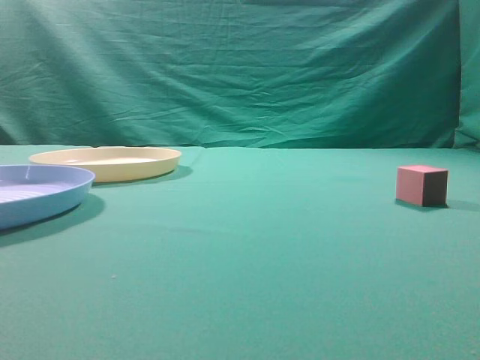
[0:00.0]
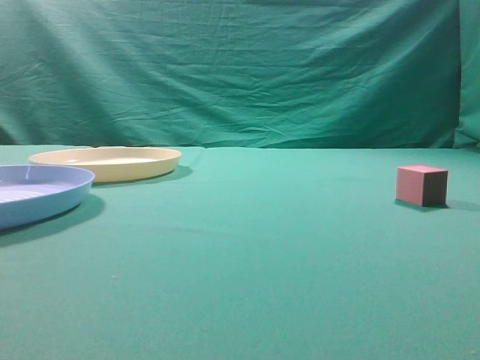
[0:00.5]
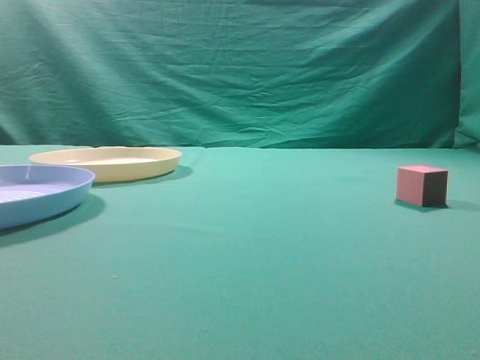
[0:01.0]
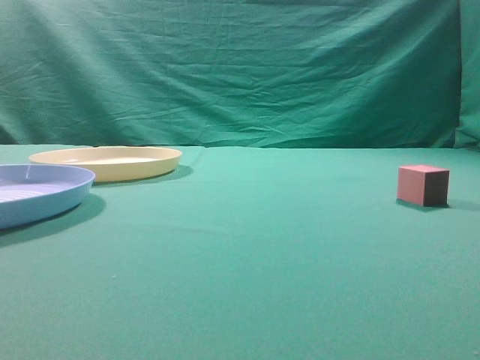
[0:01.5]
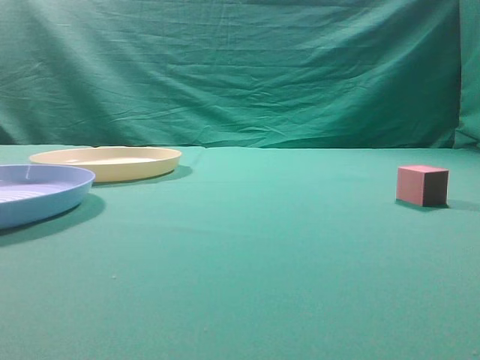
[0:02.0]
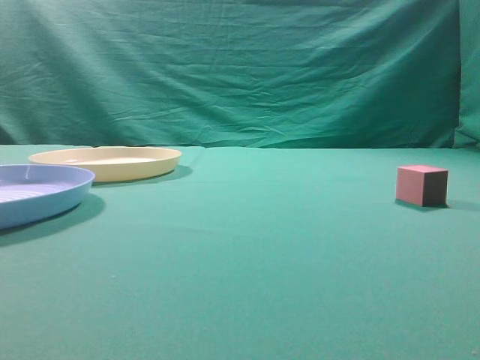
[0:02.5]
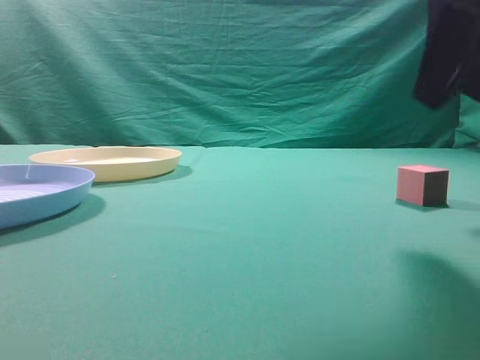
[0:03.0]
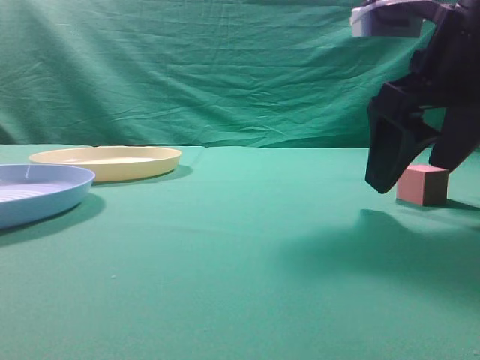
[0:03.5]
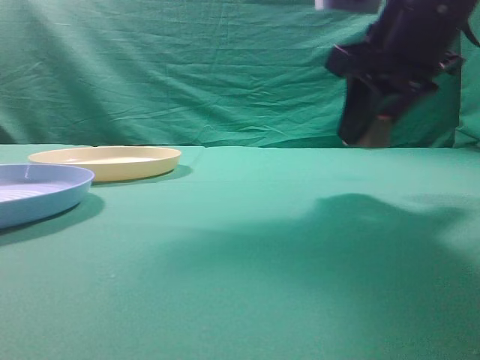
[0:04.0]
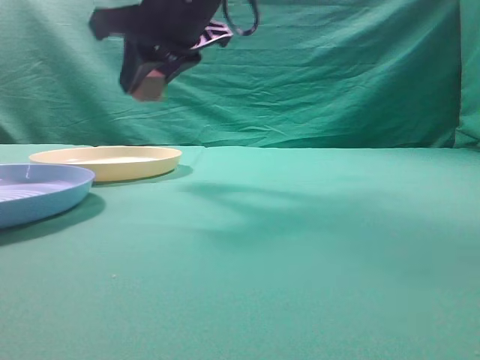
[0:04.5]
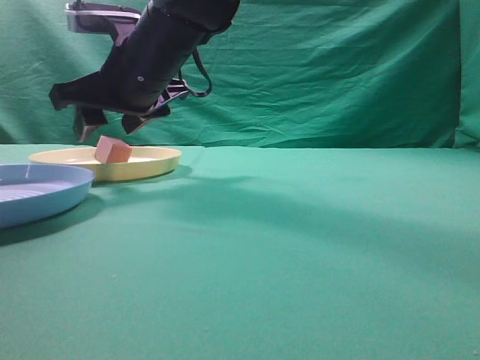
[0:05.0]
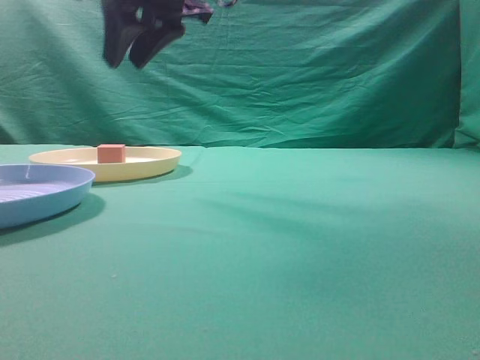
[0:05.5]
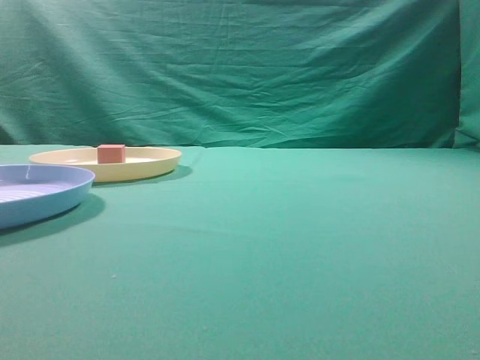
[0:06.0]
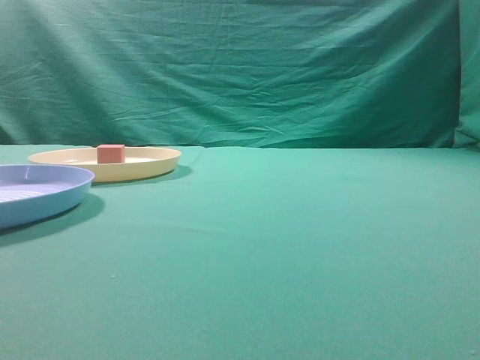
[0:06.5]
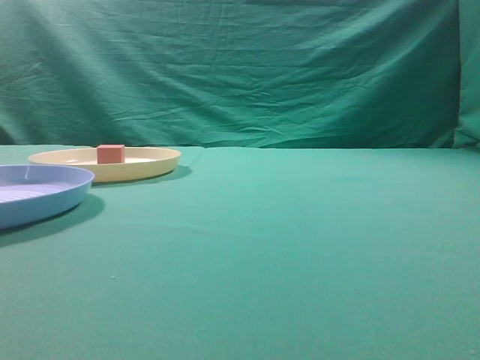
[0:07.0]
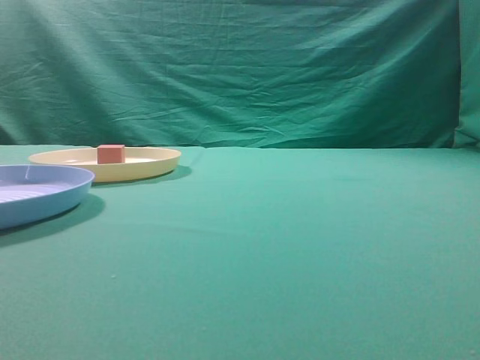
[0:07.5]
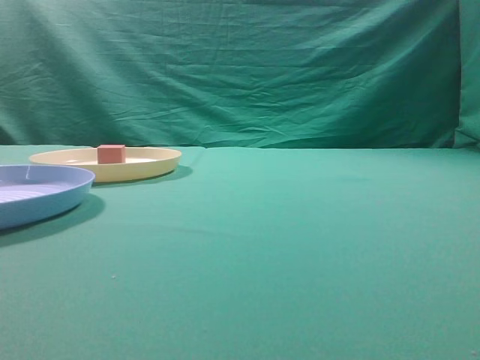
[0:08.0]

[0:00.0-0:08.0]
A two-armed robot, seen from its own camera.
Task of the whole recording: pick up the cube block from the table and put it on the plate.
Step, 0:00.0 to 0:04.0: Grasp the small cube on the table.
Step, 0:04.5 to 0:05.0: Place it into the yellow plate.
0:02.0 to 0:04.0: The right gripper moves to the left and forward, some 35 cm, and opens up.
0:04.0 to 0:06.0: The right gripper travels backward, upward and to the right by some 25 cm, and closes its fingers.
